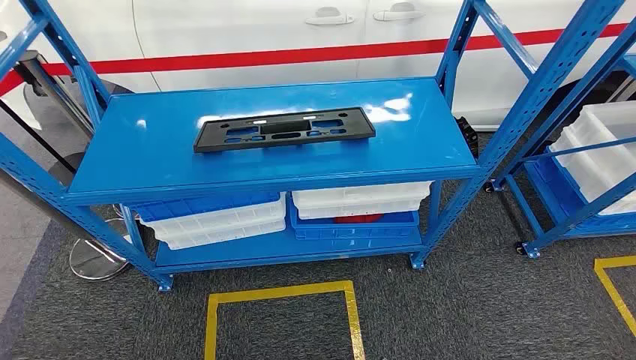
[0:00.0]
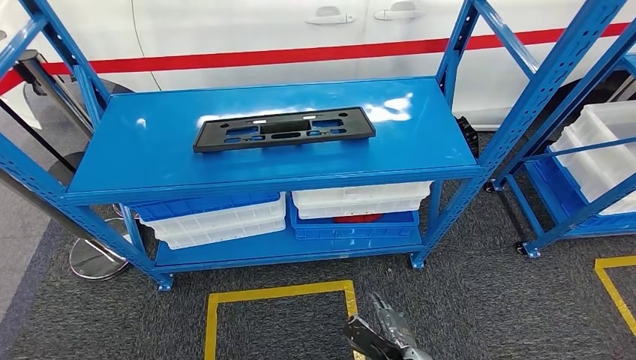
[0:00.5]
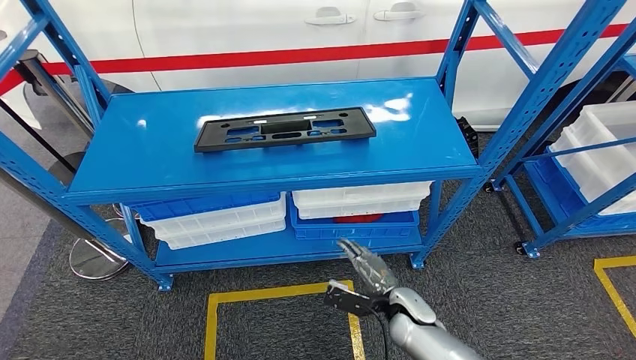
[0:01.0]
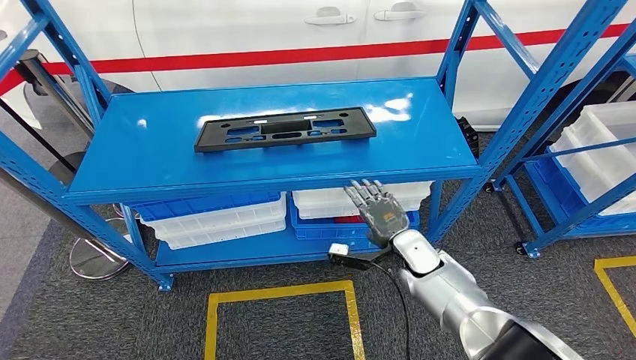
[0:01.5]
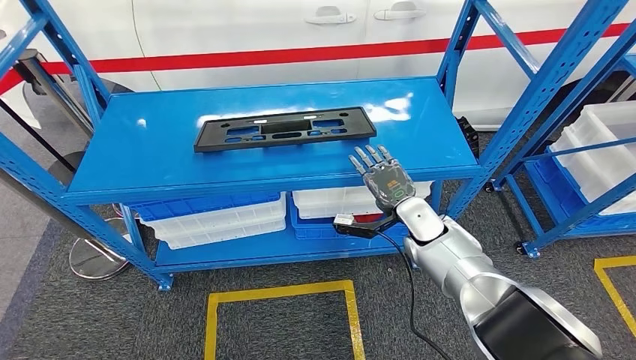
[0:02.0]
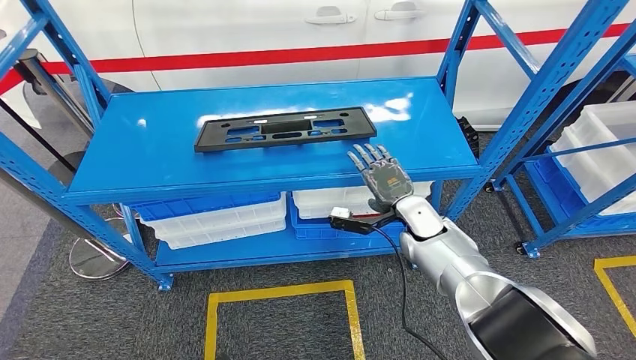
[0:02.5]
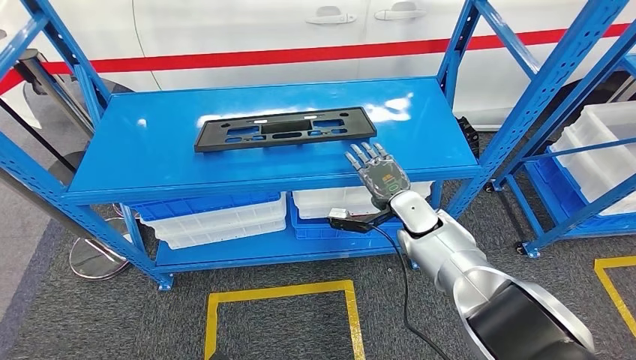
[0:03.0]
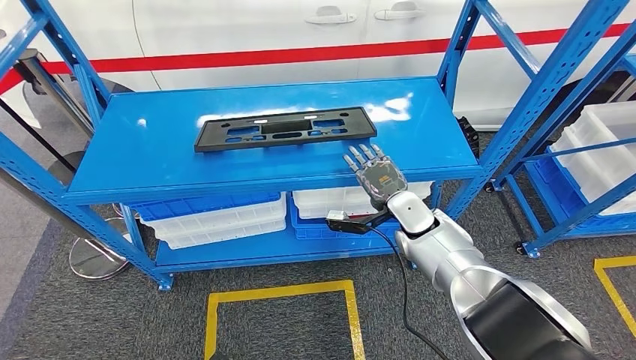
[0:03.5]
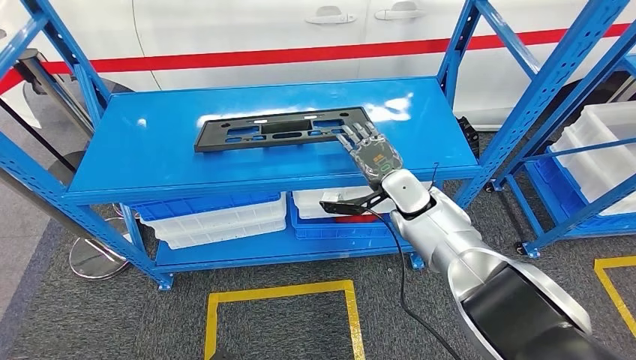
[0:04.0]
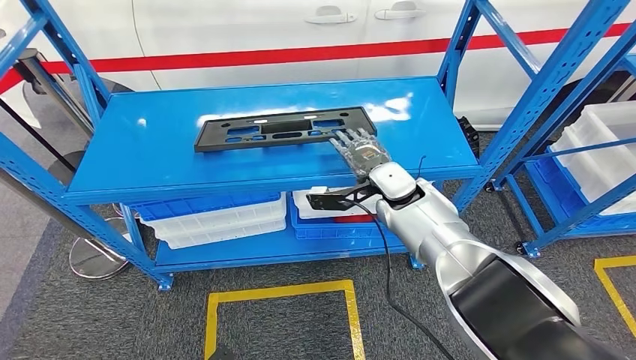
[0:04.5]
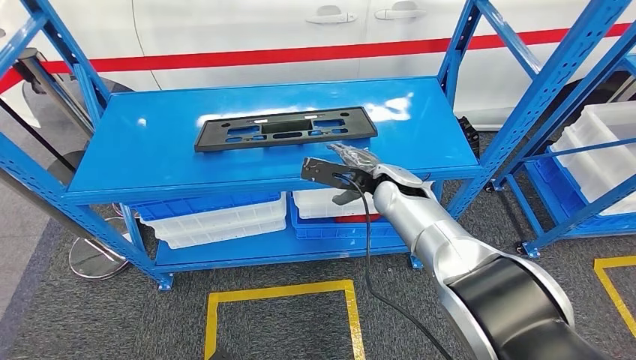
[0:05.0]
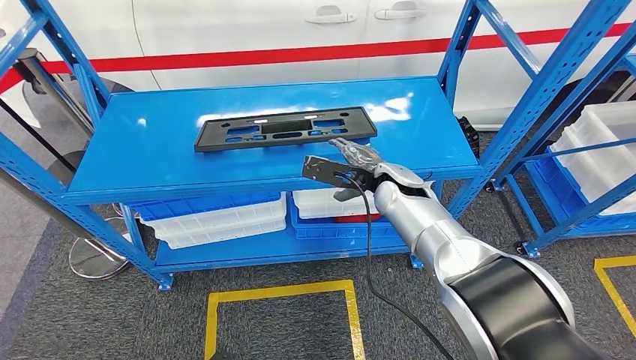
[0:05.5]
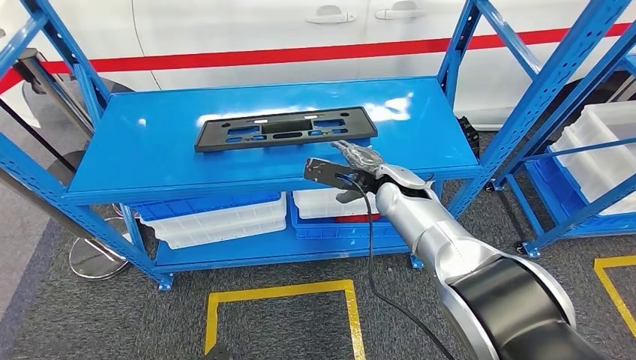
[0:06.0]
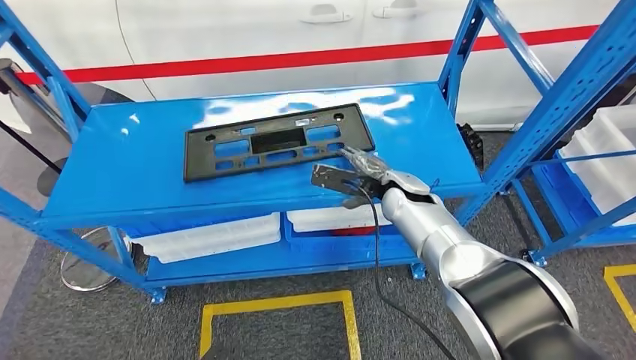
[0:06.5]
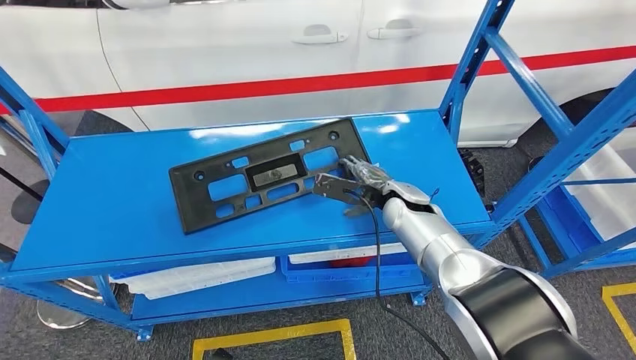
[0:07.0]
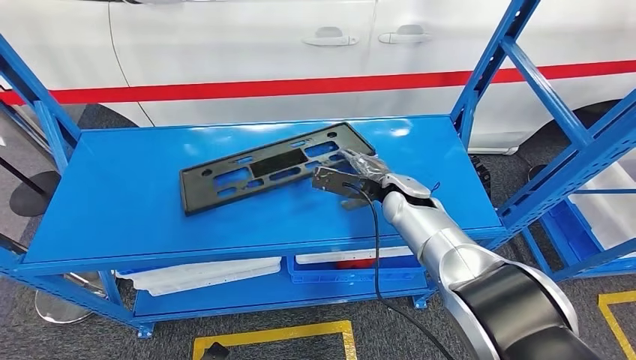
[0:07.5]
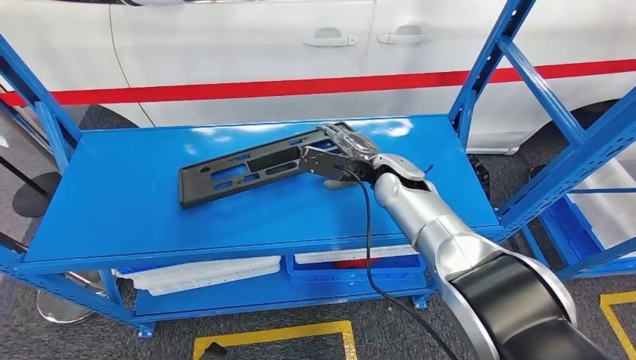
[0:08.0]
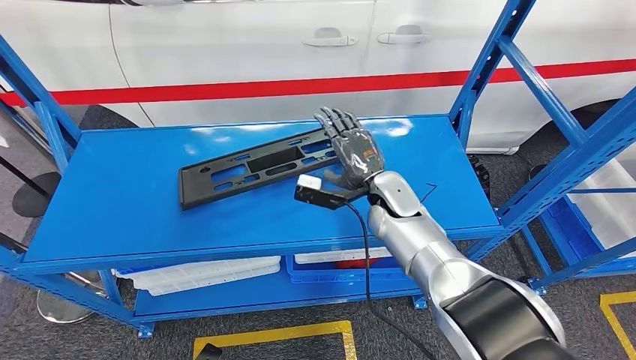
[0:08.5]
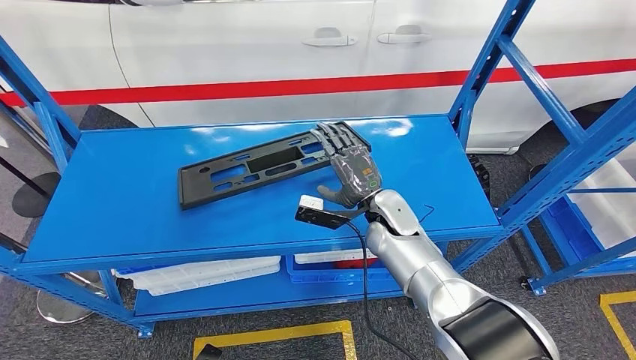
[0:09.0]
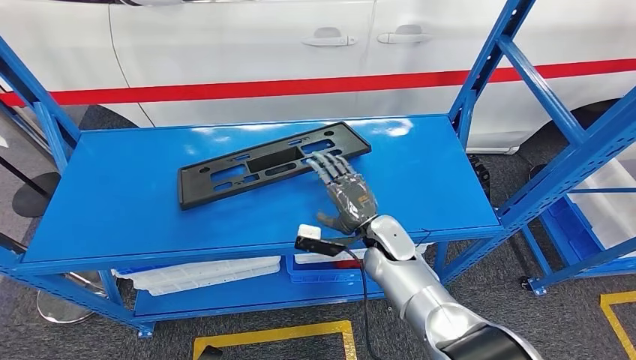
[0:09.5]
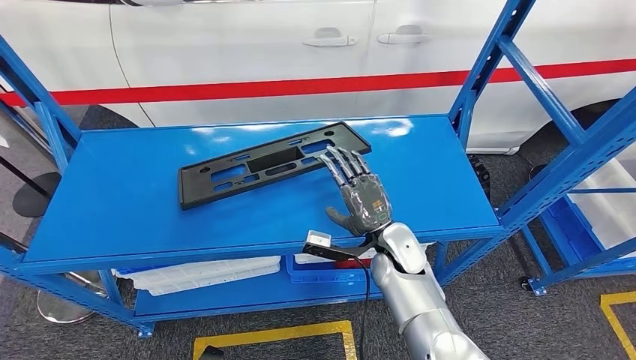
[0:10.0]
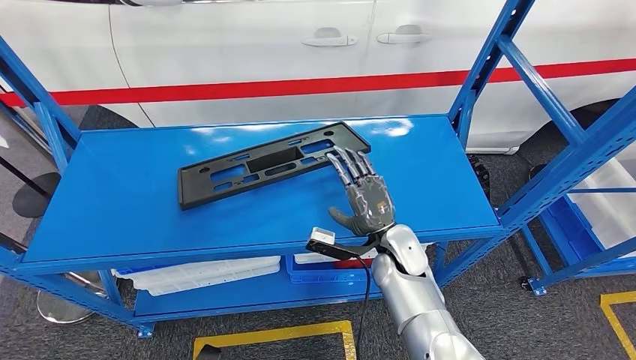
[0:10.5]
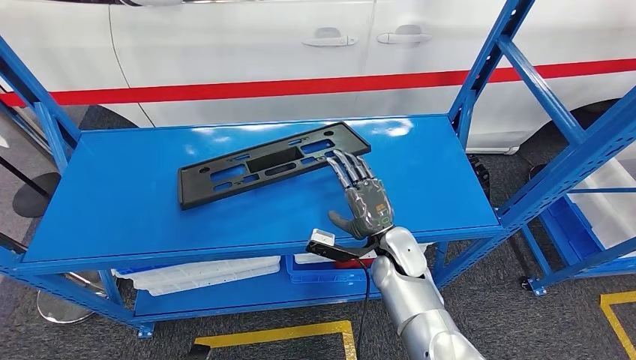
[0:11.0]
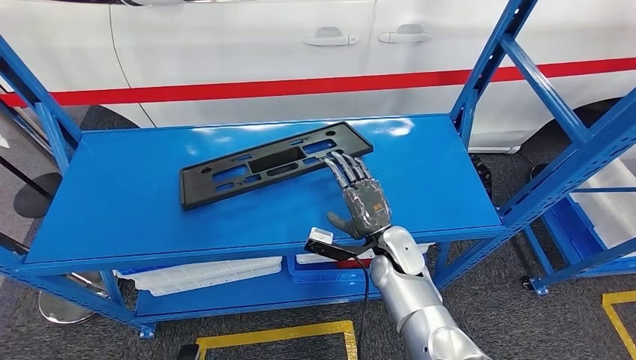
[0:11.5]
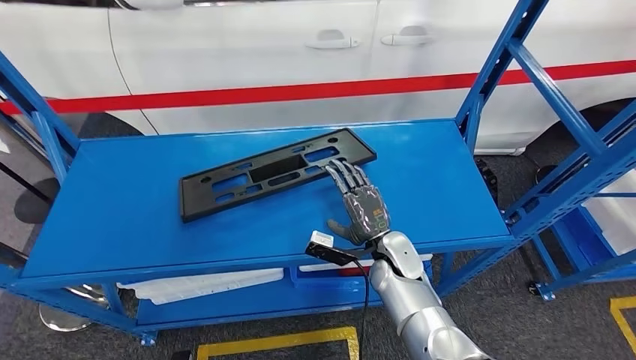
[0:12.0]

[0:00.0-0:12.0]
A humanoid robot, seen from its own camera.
0:02.0 to 0:04.0: The right hand travels upward by about 5 cm.
0:08.0 to 0:10.0: The right hand travels downward and backward by approximately 15 cm.

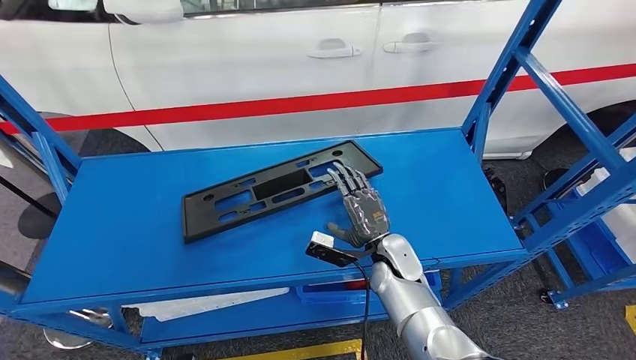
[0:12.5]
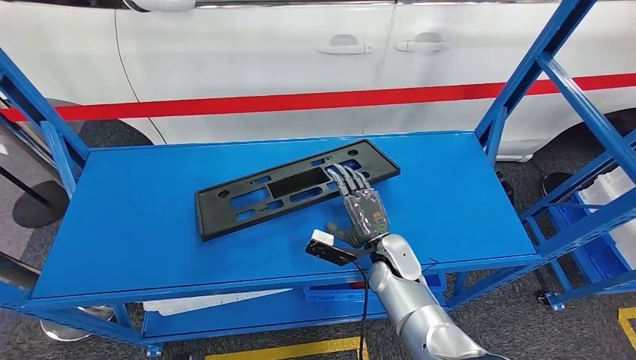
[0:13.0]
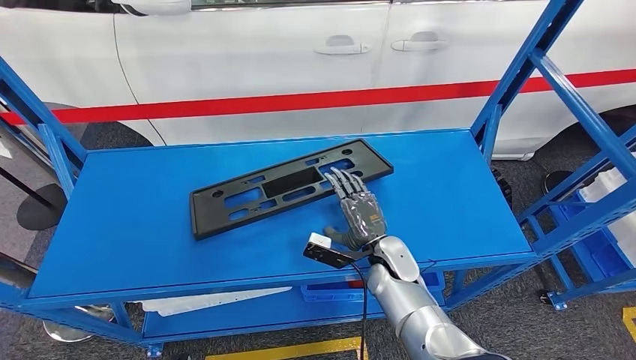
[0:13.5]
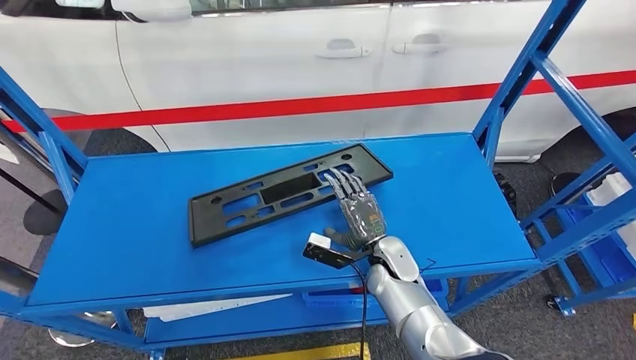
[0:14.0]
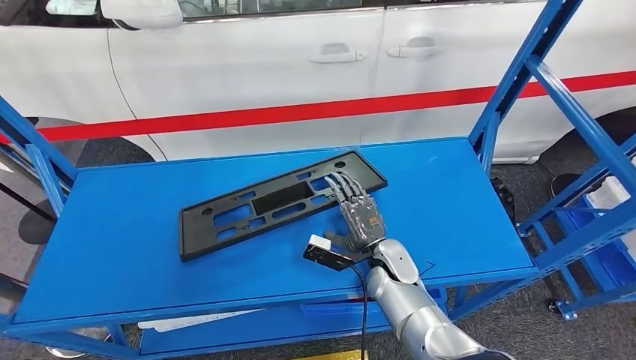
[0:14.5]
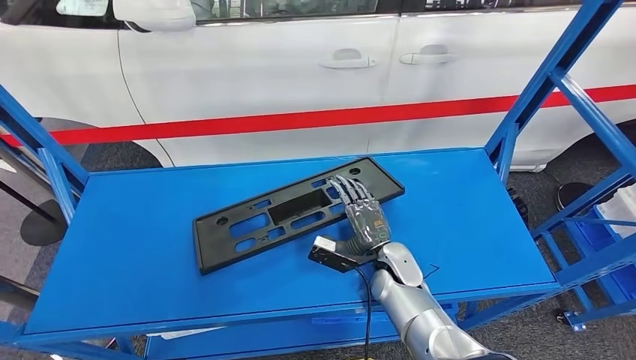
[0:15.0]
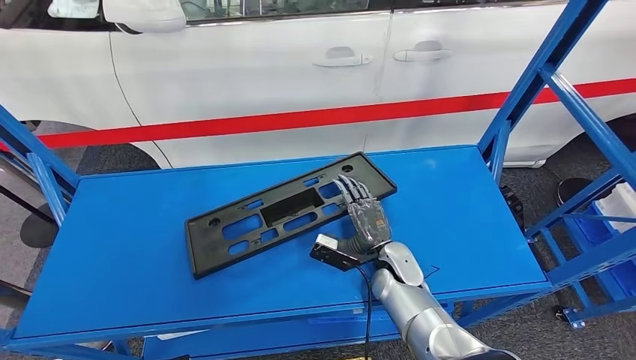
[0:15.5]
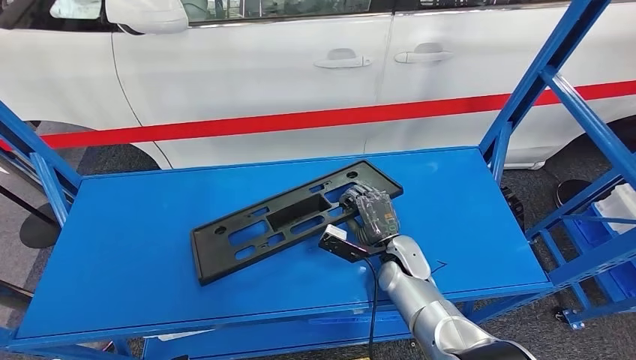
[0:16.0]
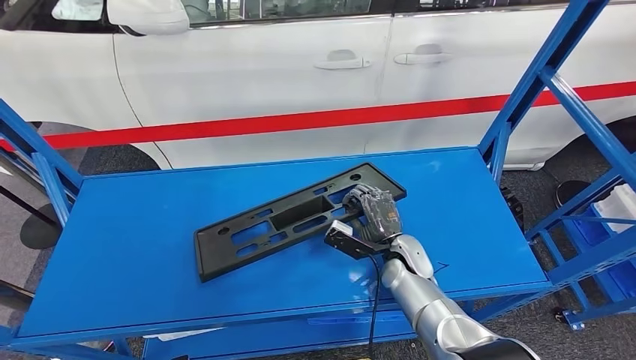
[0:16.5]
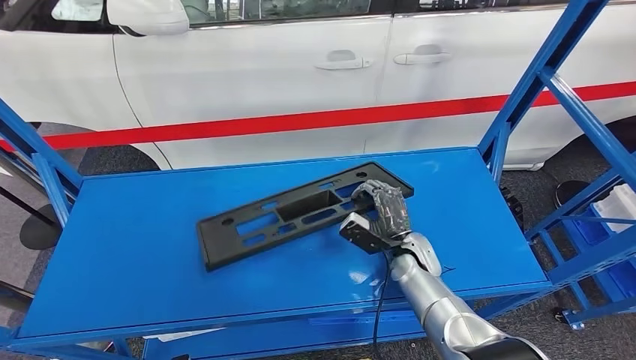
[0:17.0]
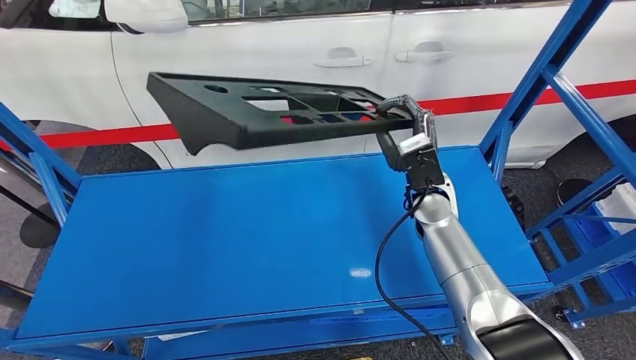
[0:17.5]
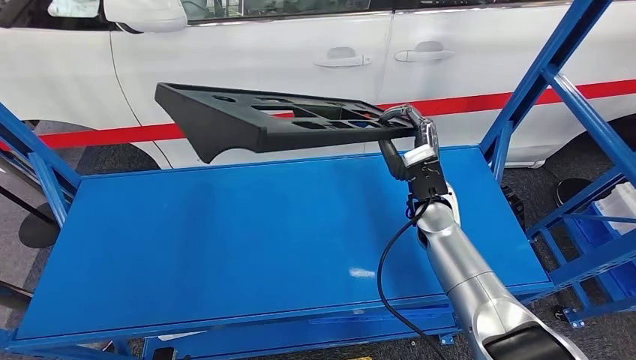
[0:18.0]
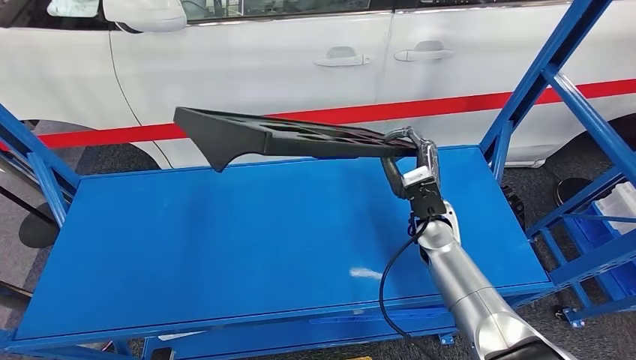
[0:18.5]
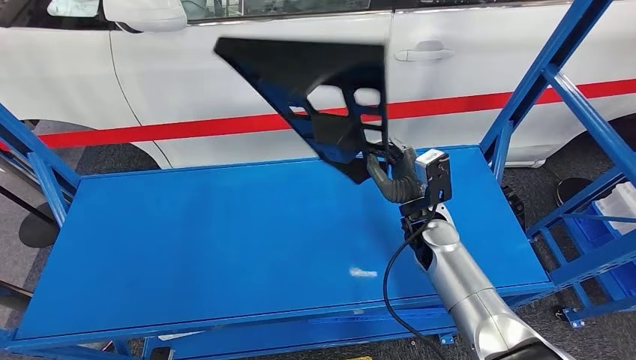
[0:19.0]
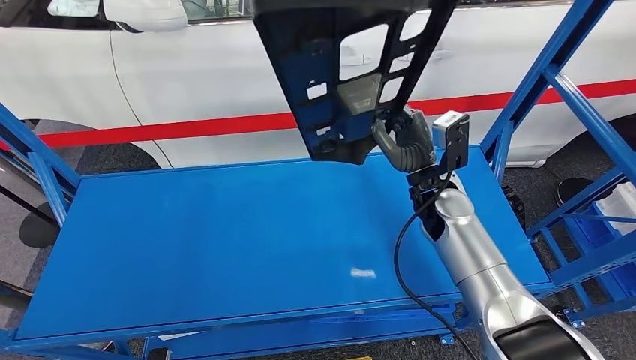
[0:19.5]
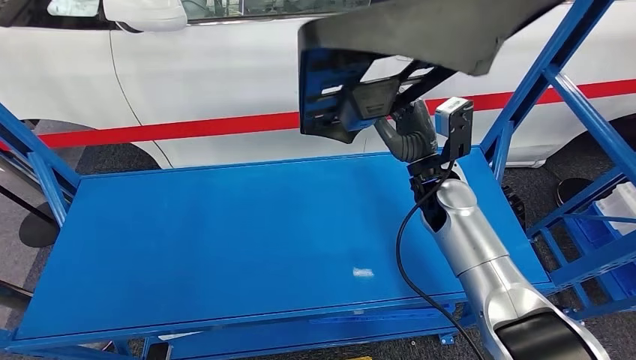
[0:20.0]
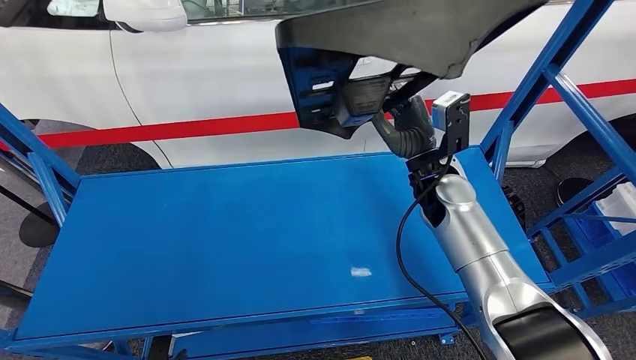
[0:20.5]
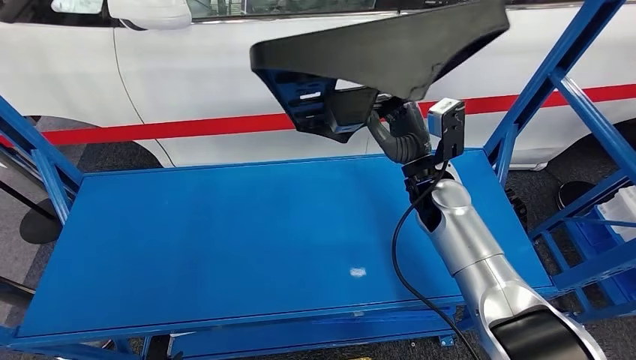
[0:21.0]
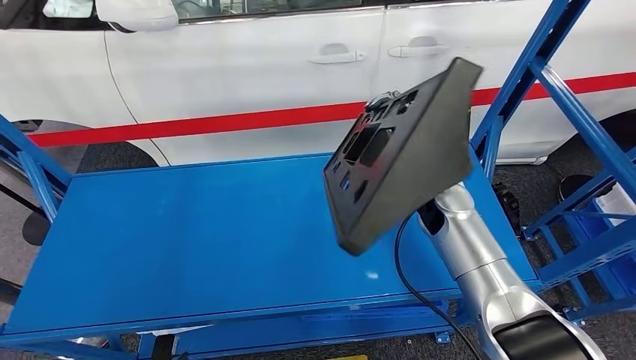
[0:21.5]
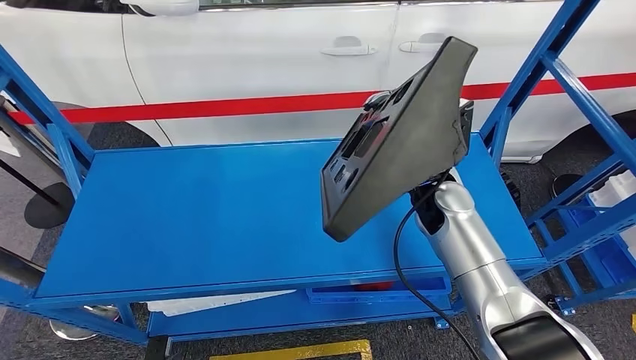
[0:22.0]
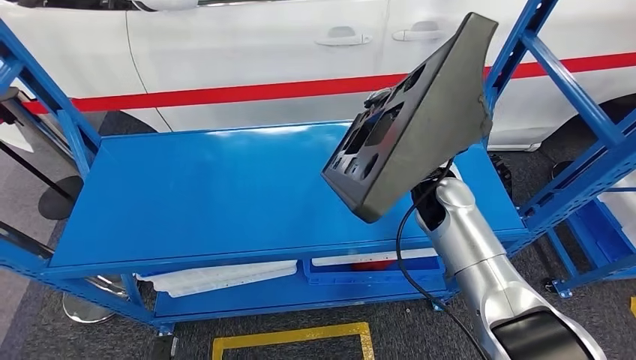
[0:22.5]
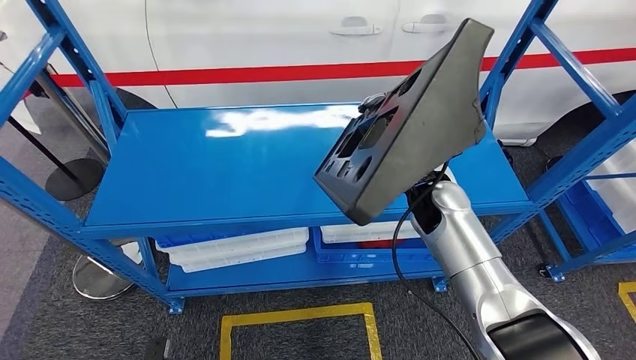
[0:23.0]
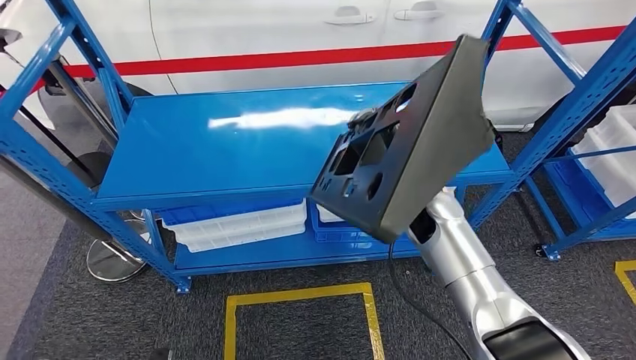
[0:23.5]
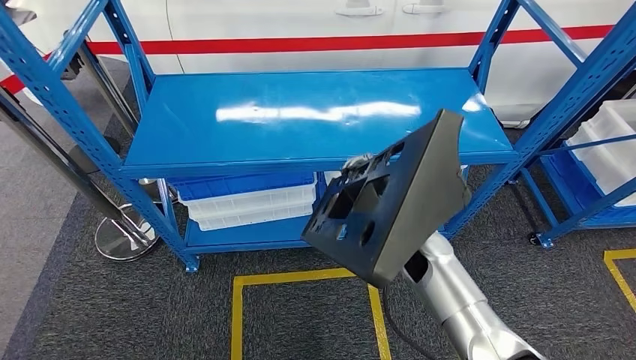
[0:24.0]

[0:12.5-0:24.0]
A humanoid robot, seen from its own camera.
Step, 0:12.5 to 0:17.0: Pick up the large material from the shelf.
